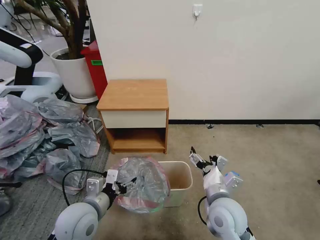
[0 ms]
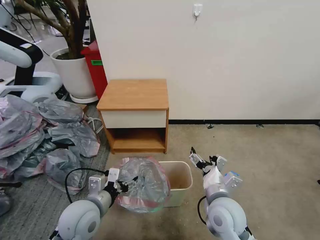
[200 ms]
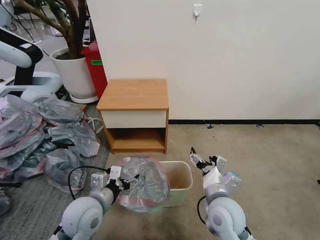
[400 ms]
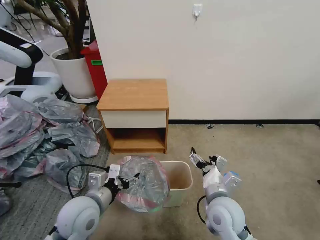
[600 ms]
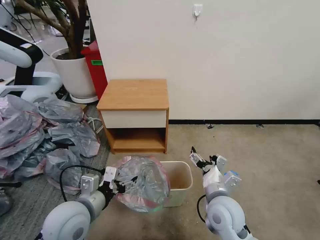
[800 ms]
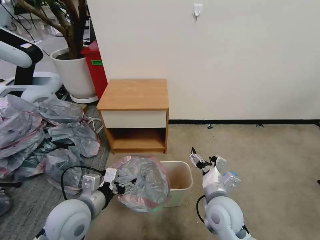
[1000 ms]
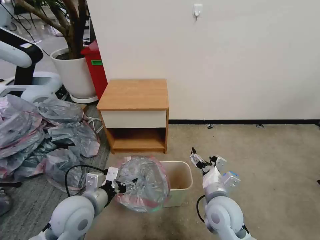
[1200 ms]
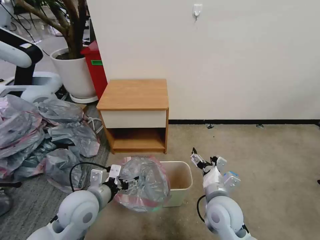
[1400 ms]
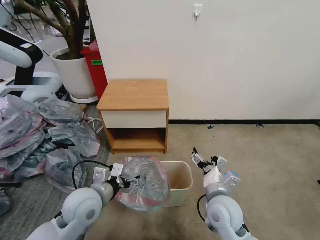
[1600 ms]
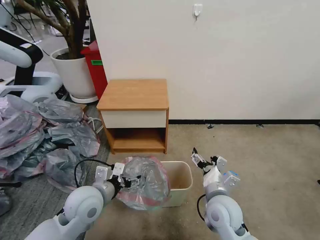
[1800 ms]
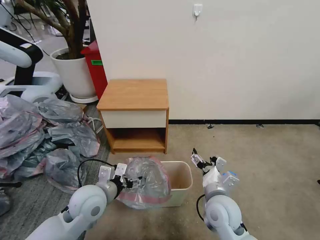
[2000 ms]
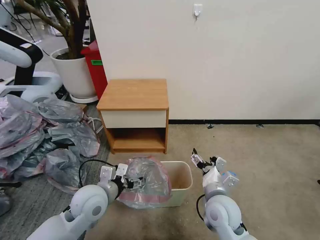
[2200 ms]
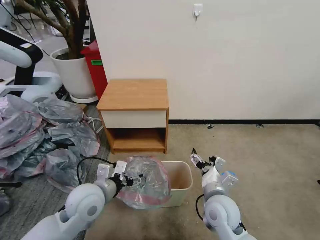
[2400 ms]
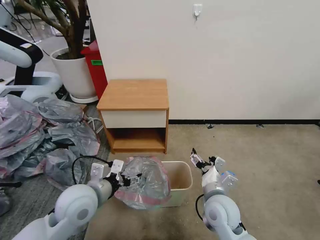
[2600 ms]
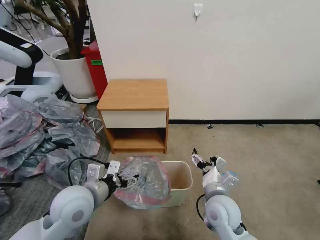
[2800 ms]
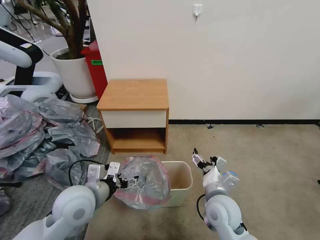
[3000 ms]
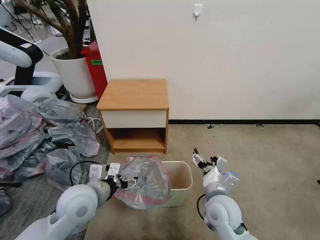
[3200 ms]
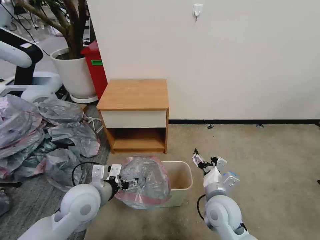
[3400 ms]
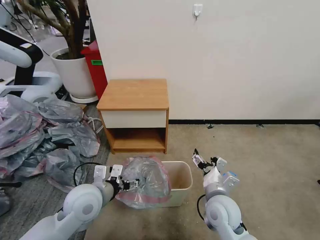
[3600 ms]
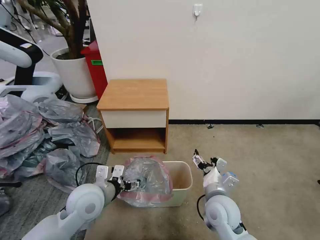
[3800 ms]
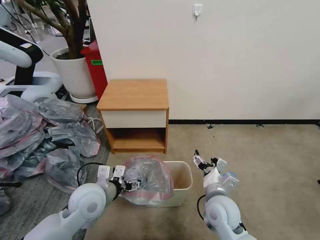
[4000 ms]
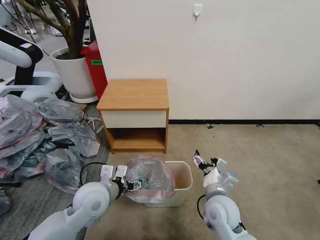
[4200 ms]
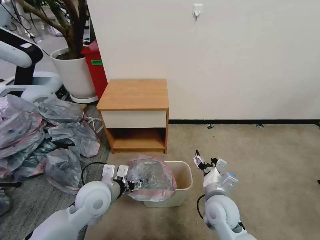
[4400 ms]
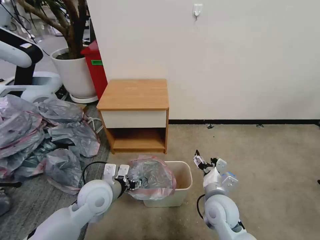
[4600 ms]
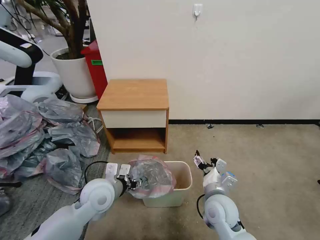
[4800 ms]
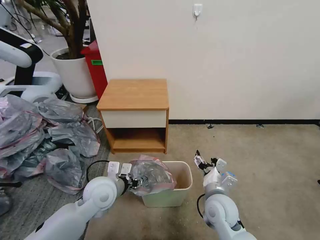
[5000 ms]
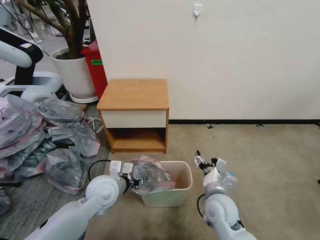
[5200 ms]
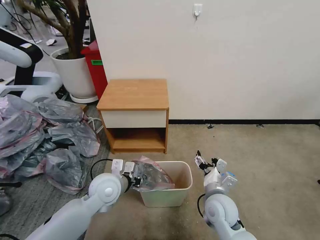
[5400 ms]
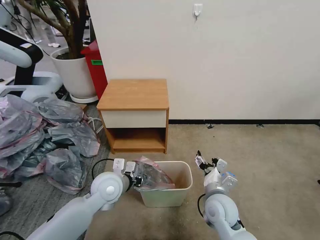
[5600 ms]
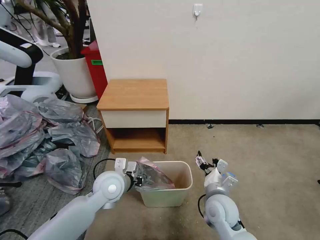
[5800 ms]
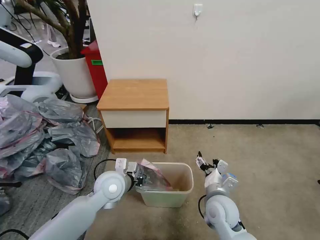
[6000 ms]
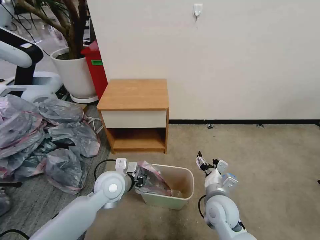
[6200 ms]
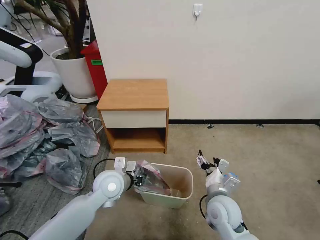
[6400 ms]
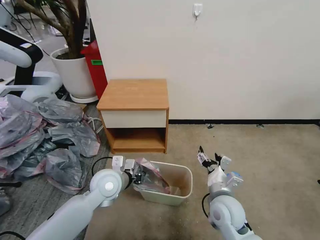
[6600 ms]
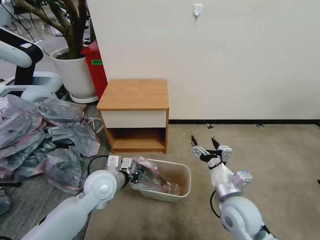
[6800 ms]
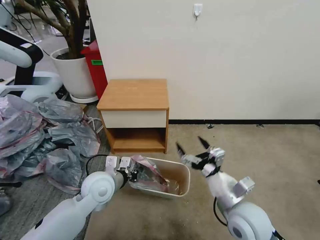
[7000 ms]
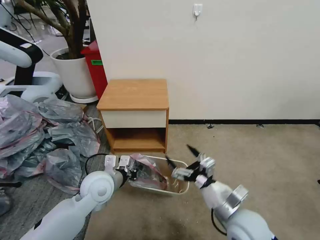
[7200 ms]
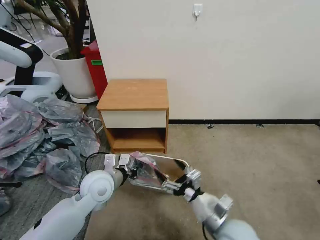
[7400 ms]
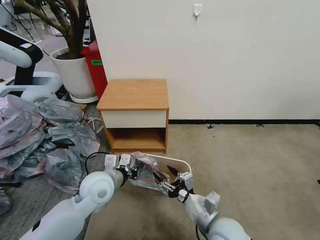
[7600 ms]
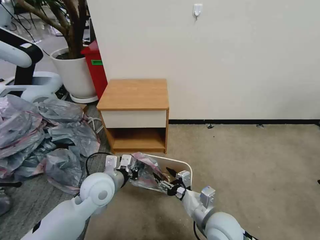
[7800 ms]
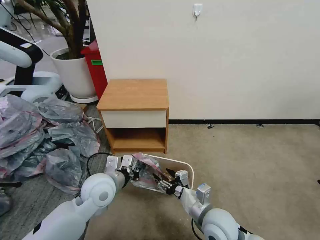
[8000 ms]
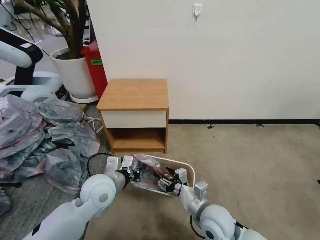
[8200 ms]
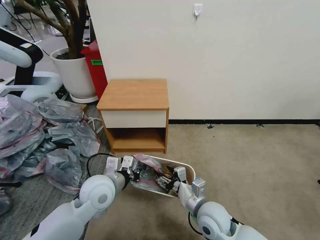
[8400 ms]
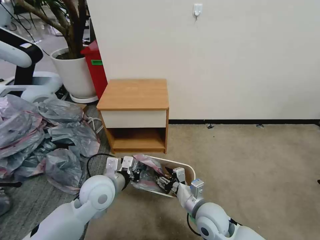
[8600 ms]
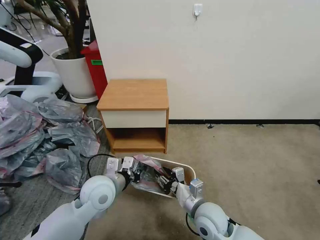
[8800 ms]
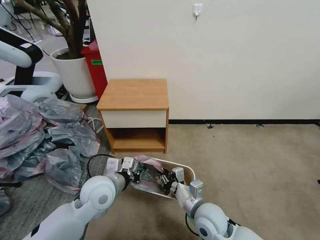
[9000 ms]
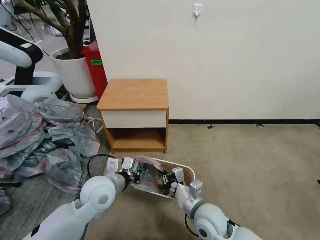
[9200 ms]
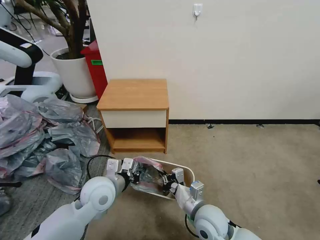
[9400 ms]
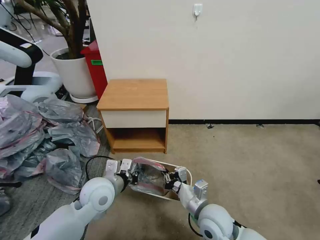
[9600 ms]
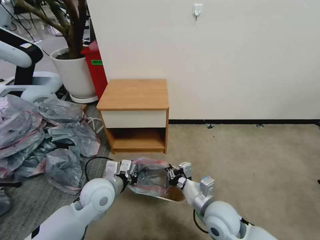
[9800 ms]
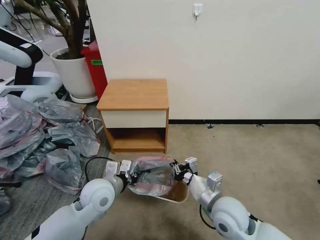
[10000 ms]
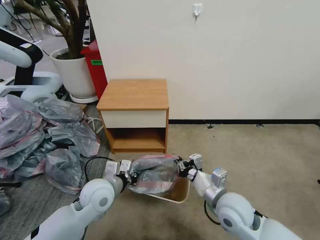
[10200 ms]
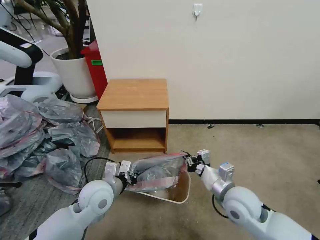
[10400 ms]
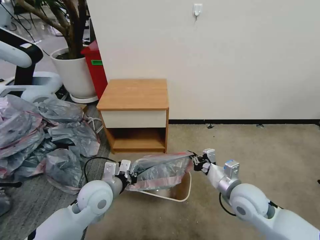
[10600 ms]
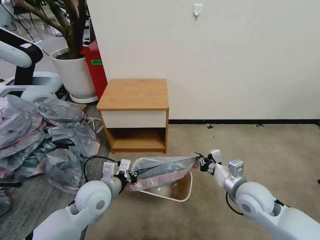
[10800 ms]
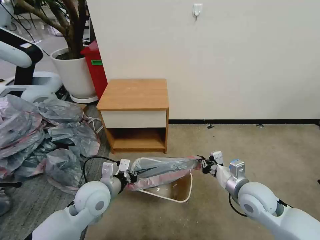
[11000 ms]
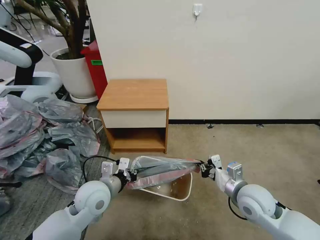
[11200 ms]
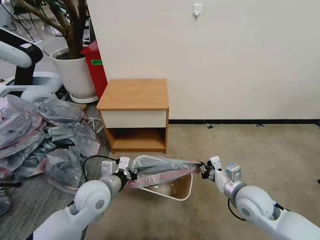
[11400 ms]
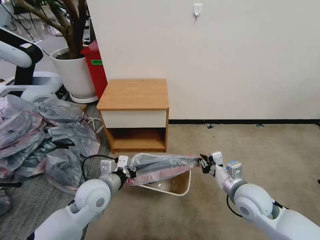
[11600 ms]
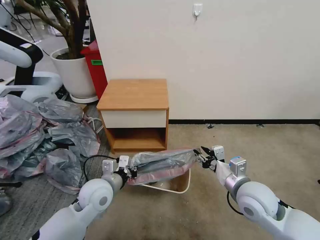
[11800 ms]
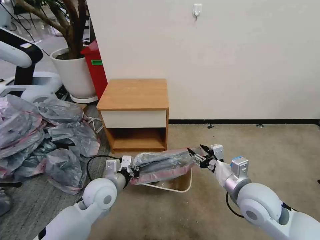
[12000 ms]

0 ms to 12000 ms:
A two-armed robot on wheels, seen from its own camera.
Task of the whole recording: Pick up the garbage bag from the table and place it over the trash can.
0 ms to 3000 ms: There are only small adjustments of the grippers.
3000 ms to 4400 ms: The left gripper shifts by roughly 5 cm.
4400 ms to 6000 ms: The left gripper shifts by approximately 5 cm, and closes its fingers.
6000 ms to 7600 ms: The right gripper heads backward, covering approximately 5 cm.
7600 ms to 9000 ms: The right gripper changes place by some 5 cm, and closes.
9000 ms to 10400 ms: The right gripper goes some 10 cm to the right and upward.
10400 ms to 12000 ms: The right gripper shifts roughly 5 cm upward, and opens up.

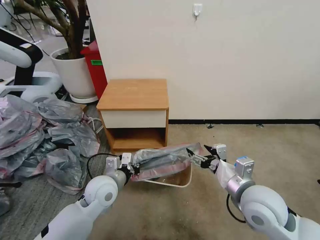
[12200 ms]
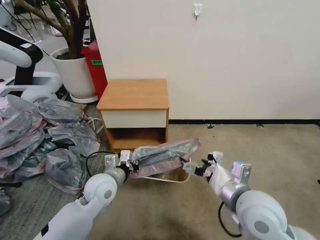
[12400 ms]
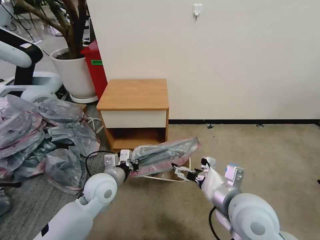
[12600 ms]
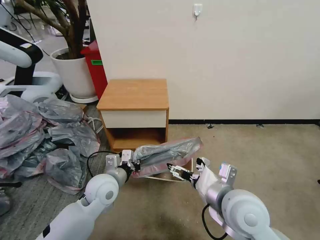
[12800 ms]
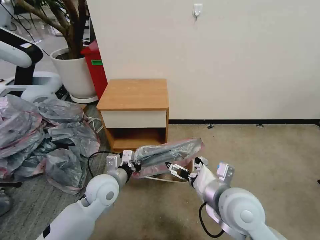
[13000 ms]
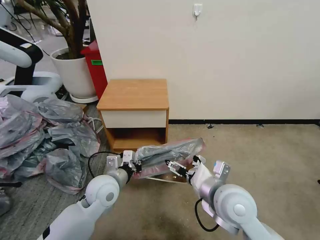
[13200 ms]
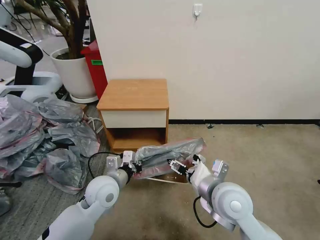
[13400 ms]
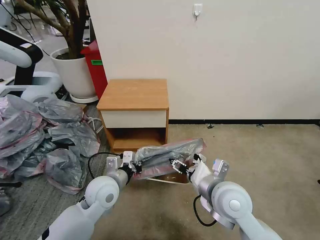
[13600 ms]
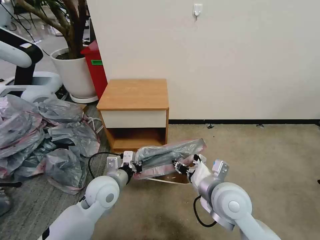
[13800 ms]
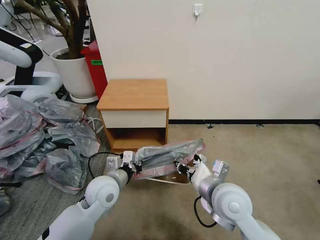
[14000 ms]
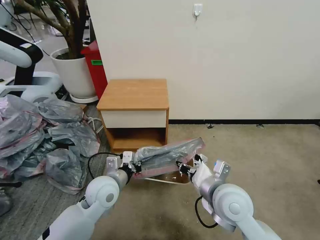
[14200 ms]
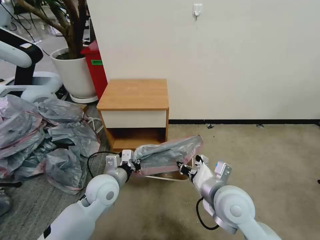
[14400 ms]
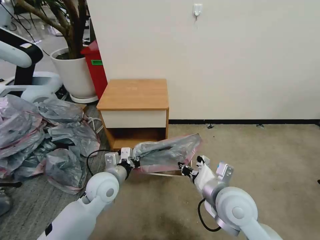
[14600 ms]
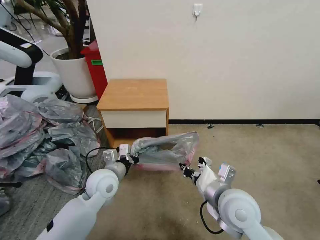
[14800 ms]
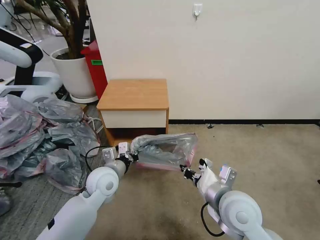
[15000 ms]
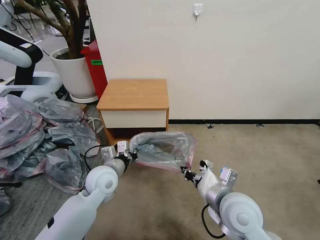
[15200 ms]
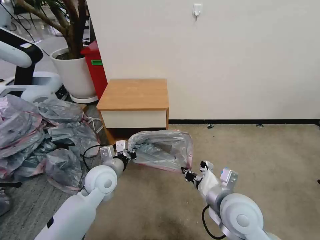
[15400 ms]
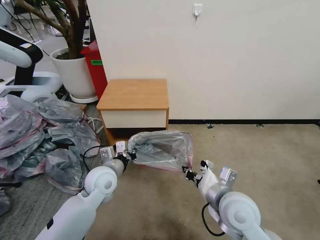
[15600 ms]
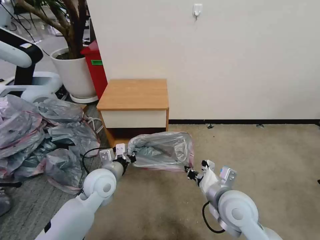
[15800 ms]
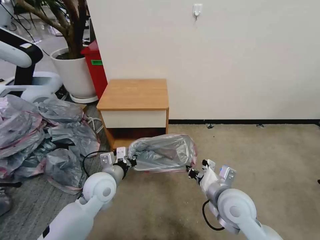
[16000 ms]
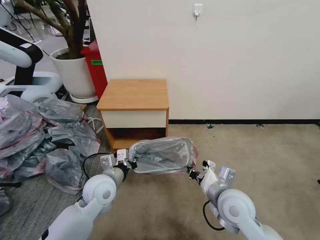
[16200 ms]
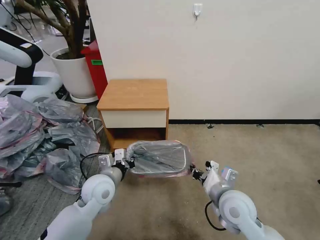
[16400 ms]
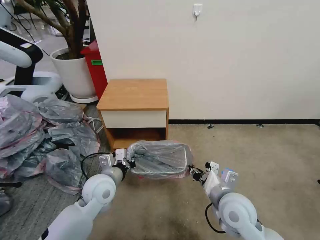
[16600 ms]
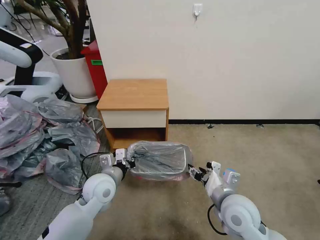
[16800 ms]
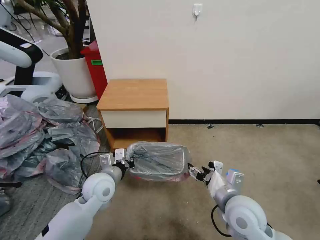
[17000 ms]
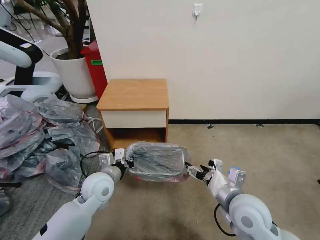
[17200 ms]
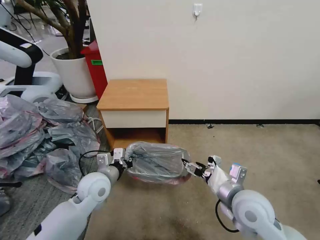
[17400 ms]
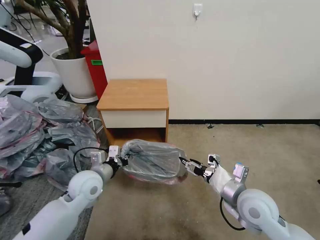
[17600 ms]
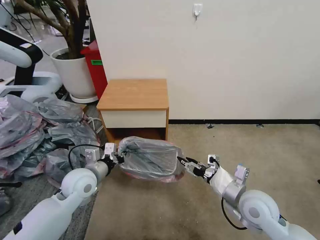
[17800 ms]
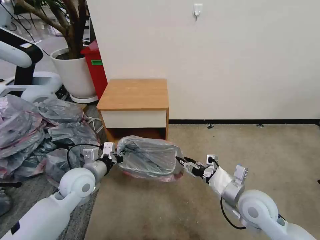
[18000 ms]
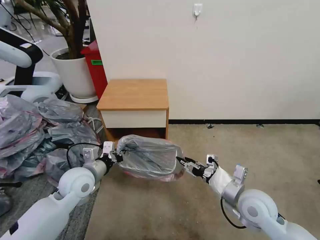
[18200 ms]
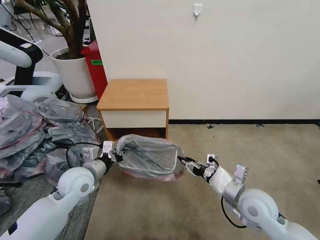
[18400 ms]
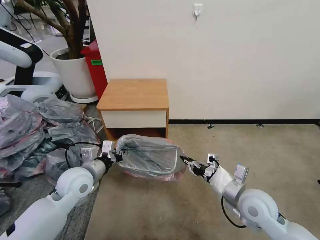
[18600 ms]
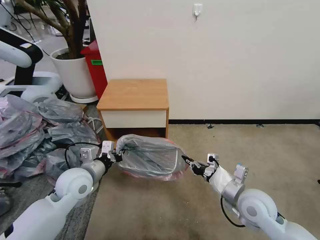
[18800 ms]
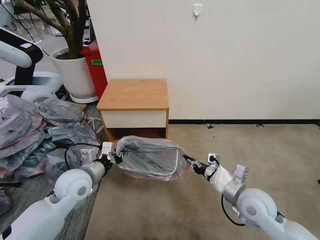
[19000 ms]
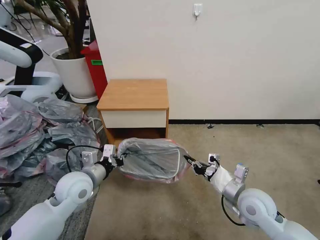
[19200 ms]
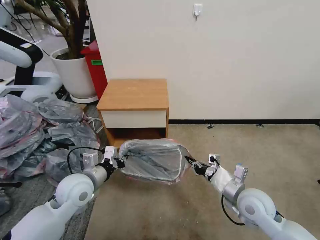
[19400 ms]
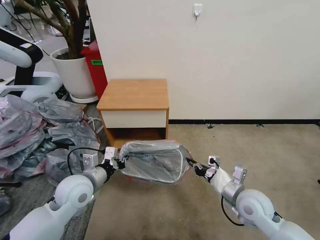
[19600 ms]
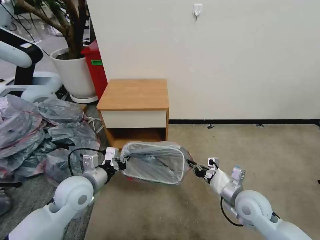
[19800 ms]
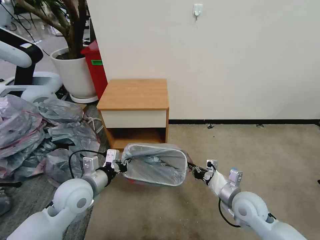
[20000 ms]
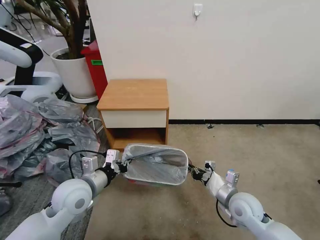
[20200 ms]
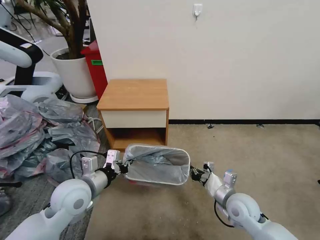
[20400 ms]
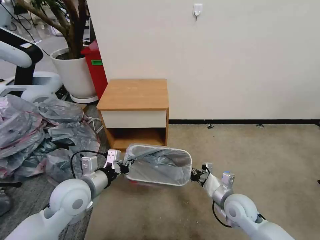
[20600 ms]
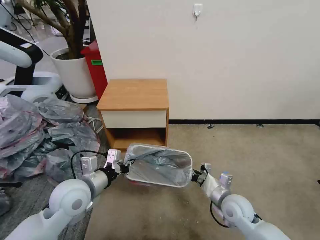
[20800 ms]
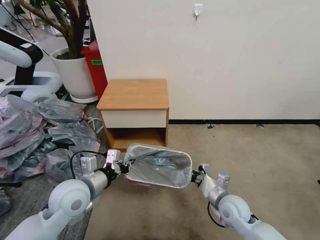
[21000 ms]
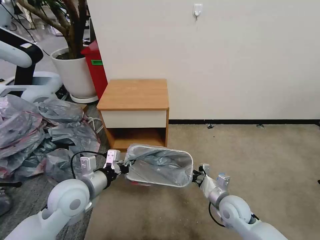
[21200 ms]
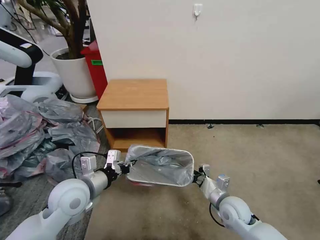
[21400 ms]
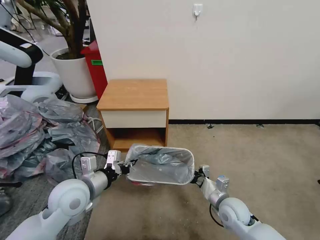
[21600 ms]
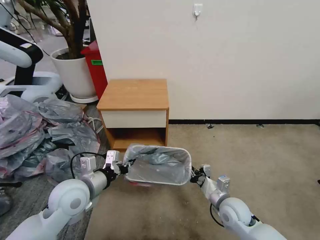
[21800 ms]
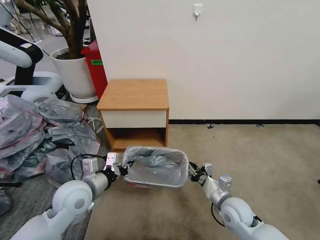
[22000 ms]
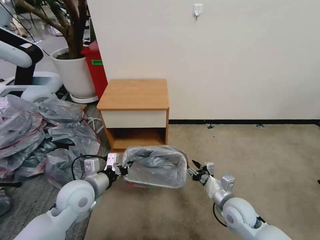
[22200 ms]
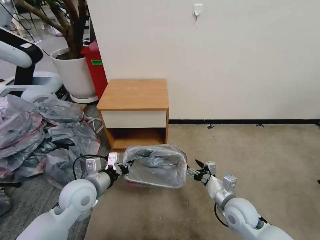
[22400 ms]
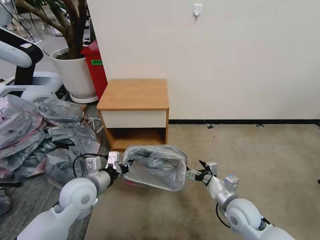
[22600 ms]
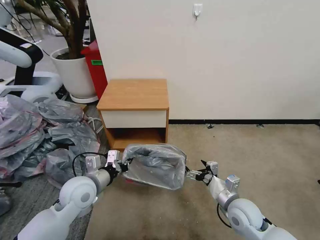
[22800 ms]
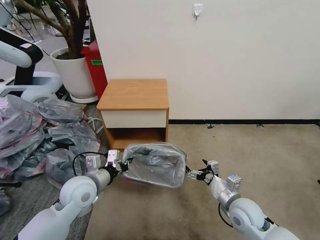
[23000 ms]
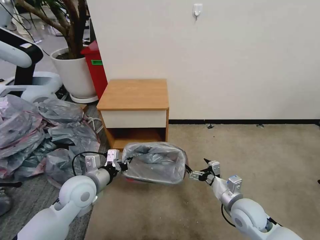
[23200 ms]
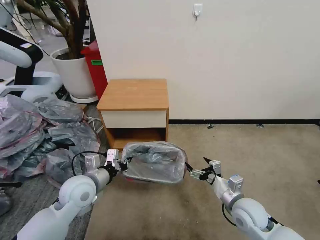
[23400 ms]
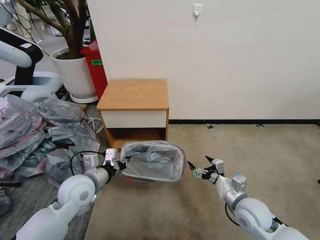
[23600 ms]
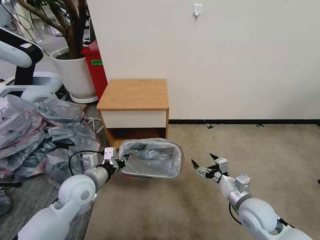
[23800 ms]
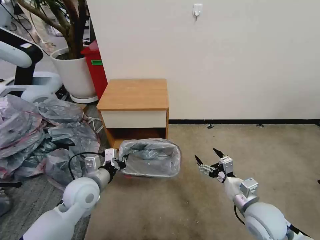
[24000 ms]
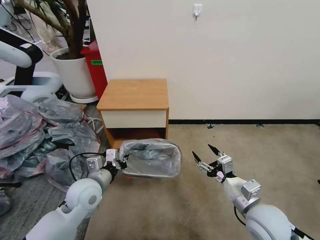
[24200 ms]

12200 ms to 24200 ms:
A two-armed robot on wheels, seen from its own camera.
Task of the whole recording: Pick up the garbage bag from the table and place it over the trash can.
12200 ms to 13800 ms: The right gripper heads to the left, covering roughly 5 cm, and closes up.
13800 ms to 15200 ms: There are only small adjustments of the grippers.
15200 ms to 16600 ms: The right gripper moves approximately 5 cm.
16600 ms to 18200 ms: The left gripper shifts some 5 cm to the left; the right gripper goes approximately 5 cm to the right.
18200 ms to 19800 ms: The right gripper closes its fingers.
19800 ms to 21200 ms: The right gripper travels downward by approximately 5 cm.
21200 ms to 22600 ms: The right gripper opens up.
22600 ms to 24200 ms: The right gripper travels upward by some 10 cm.
